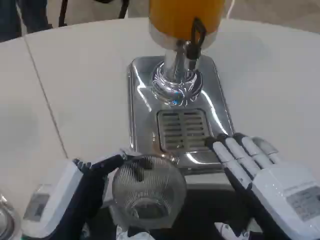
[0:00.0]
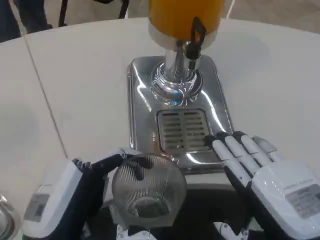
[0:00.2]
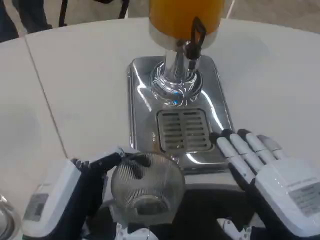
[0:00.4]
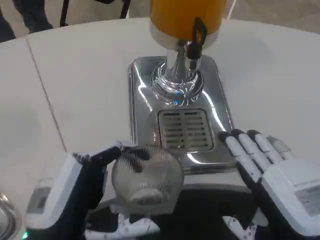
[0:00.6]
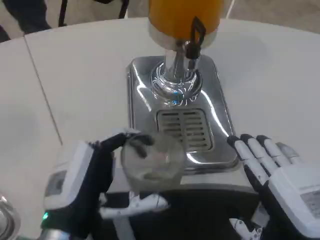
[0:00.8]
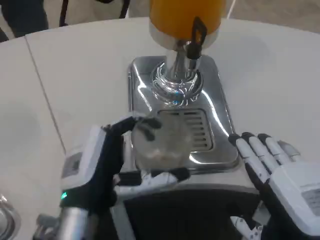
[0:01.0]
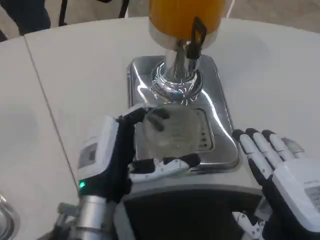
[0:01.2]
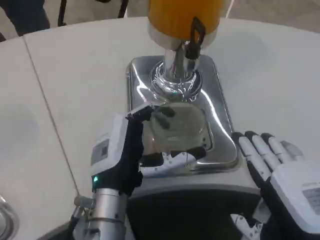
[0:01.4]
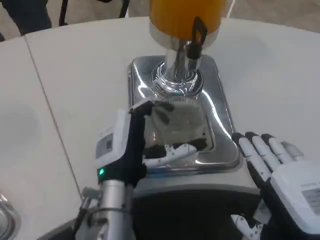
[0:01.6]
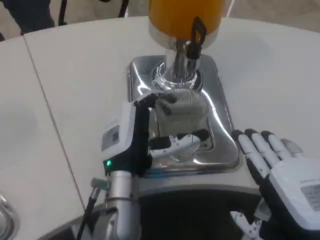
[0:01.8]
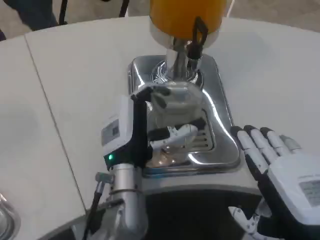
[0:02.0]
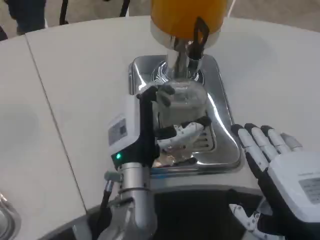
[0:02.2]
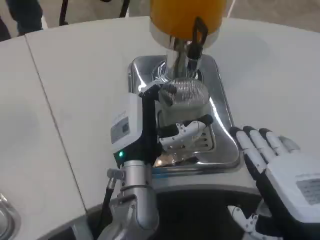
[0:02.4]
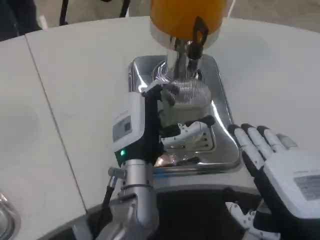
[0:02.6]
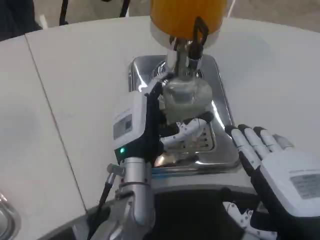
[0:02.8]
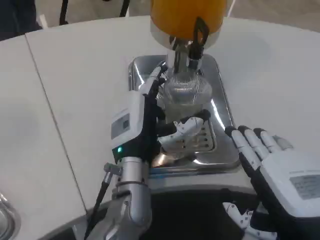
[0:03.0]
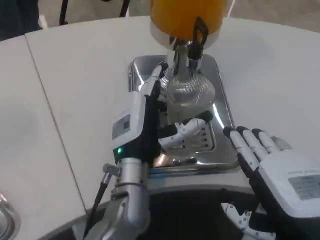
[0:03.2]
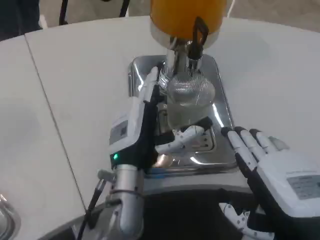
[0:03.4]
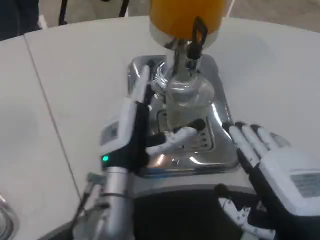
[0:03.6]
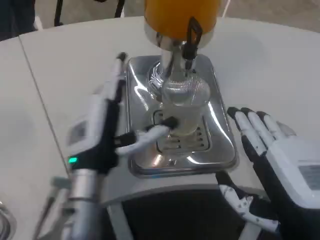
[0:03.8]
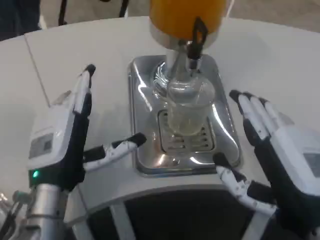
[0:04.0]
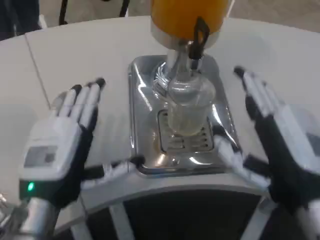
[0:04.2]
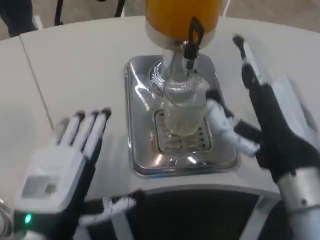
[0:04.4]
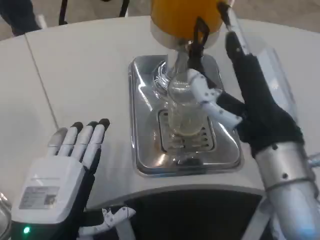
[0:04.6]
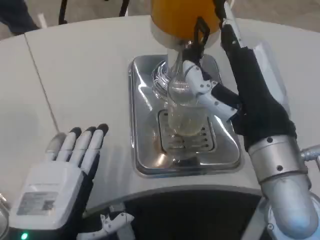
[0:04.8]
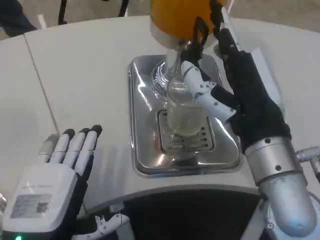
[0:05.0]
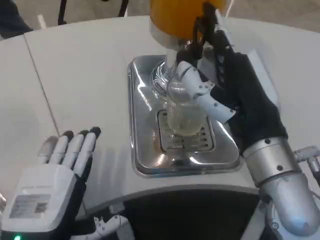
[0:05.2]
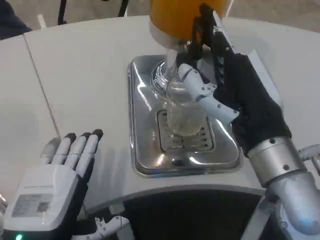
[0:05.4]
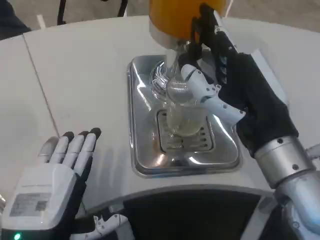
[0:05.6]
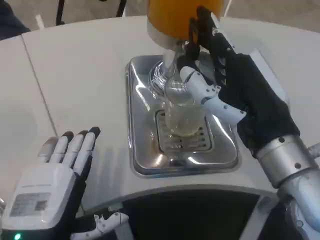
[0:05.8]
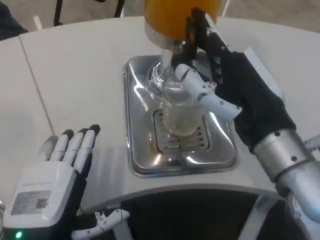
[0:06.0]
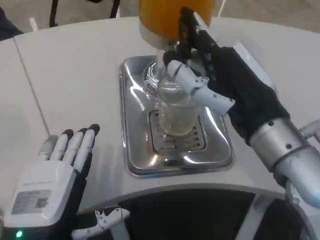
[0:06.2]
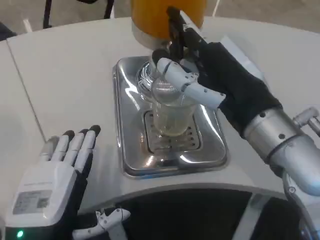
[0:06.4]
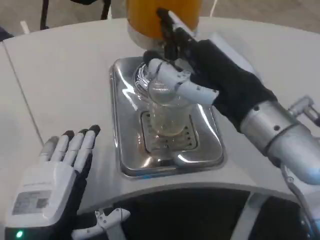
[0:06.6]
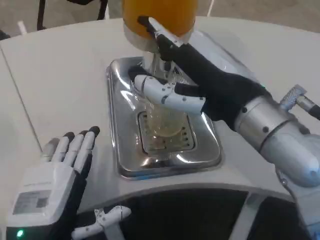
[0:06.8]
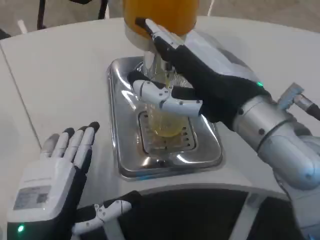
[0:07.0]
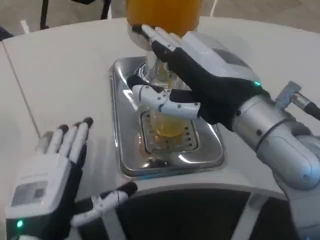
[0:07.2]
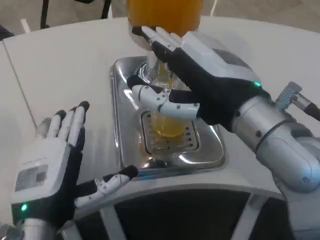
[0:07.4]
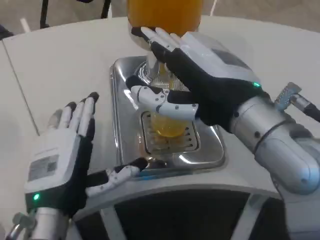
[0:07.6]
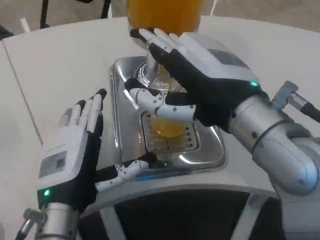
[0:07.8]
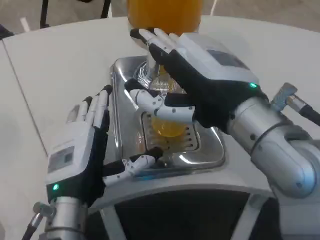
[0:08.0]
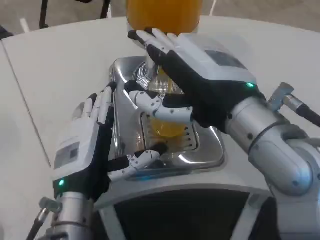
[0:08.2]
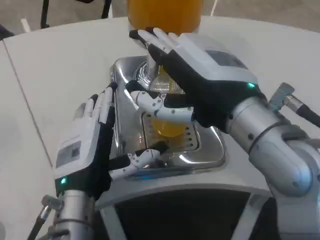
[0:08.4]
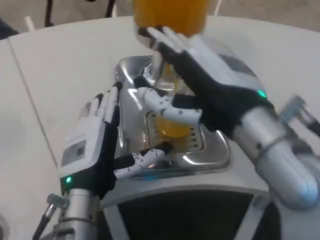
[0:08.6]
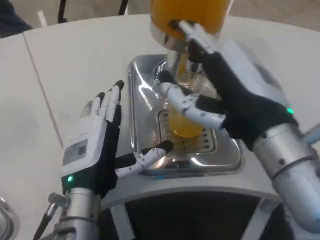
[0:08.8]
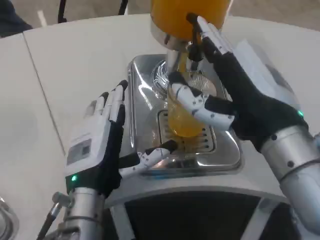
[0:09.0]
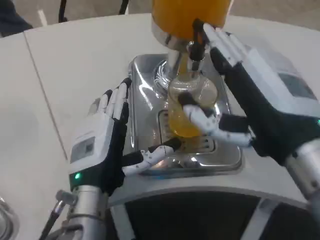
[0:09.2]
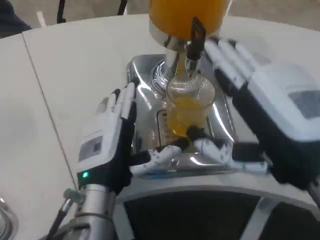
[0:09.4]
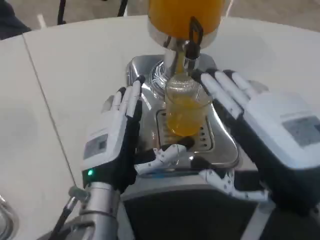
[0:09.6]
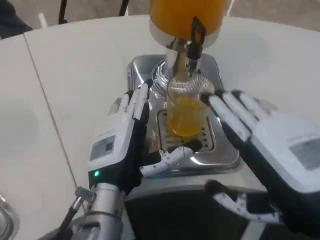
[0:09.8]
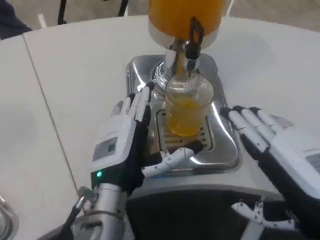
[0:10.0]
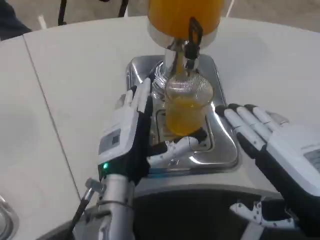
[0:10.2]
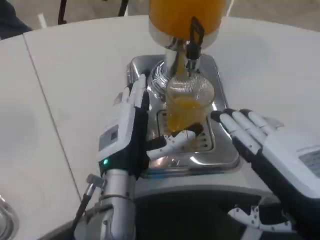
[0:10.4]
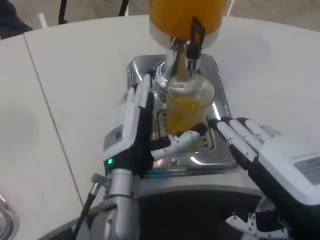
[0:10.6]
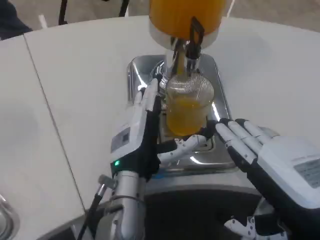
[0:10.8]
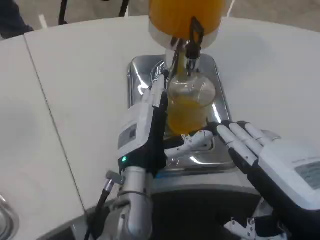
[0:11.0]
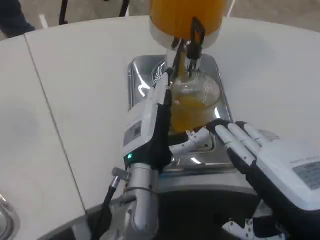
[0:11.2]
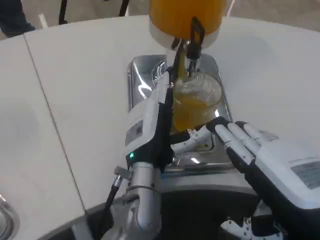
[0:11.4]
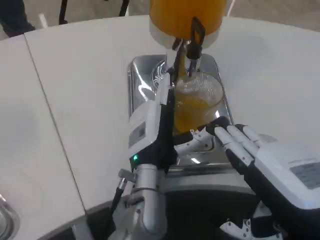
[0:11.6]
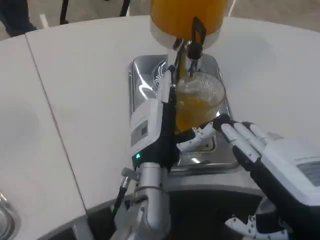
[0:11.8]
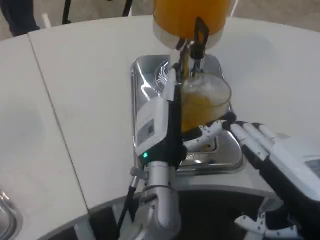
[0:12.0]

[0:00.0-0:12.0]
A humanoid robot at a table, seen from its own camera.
Task of the whole recording: Grasp the cup under the faucet to collect the drink, then remove the cup.
0:00.0 to 0:01.6: The left hand heads forward and to the right, covering roughly 15 cm.
0:01.6 to 0:03.0: There are only small adjustments of the hands.
0:03.0 to 0:04.4: The right hand travels forward by about 5 cm. The left hand moves backward and to the left, roughly 20 cm.
0:06.0 to 0:07.6: The right hand shifts by approximately 5 cm; the left hand travels forward by some 5 cm.
0:07.6 to 0:09.0: The left hand changes place by about 5 cm.
0:09.0 to 0:10.4: The left hand ends up approximately 5 cm from where it was; the right hand travels to the right and backward by approximately 10 cm.
0:10.4 to 0:12.0: The left hand is displaced to the right by some 5 cm.

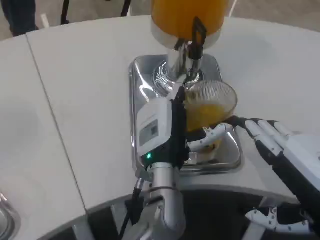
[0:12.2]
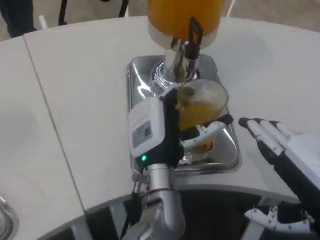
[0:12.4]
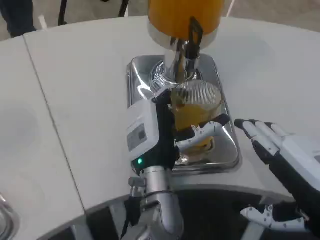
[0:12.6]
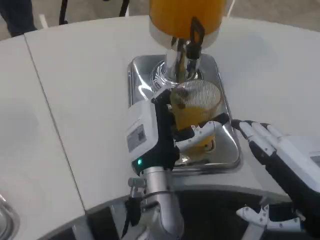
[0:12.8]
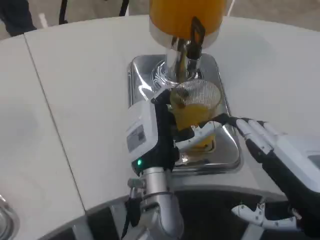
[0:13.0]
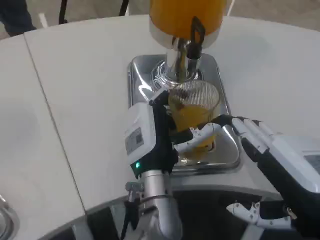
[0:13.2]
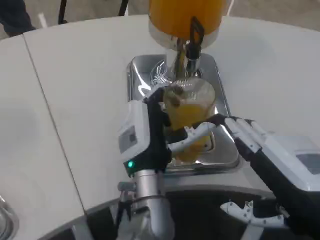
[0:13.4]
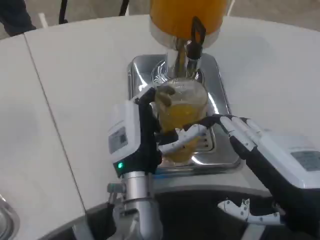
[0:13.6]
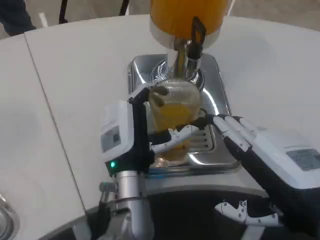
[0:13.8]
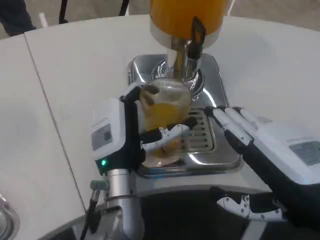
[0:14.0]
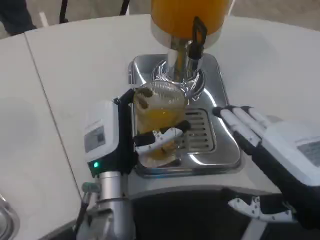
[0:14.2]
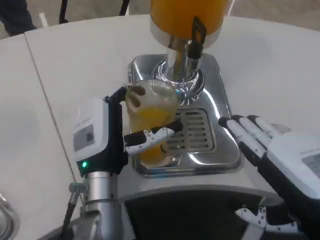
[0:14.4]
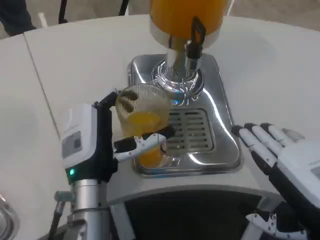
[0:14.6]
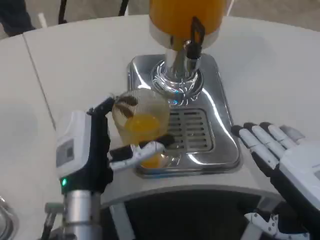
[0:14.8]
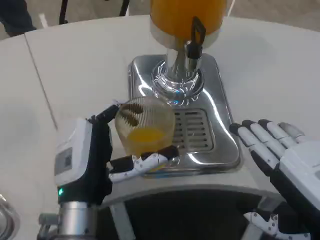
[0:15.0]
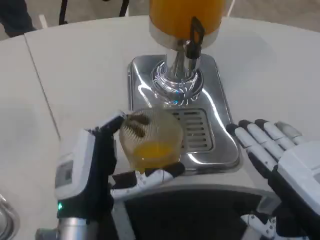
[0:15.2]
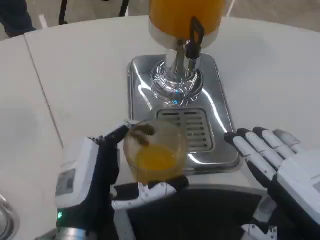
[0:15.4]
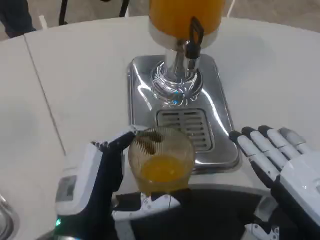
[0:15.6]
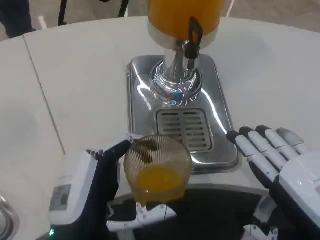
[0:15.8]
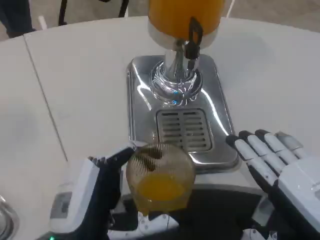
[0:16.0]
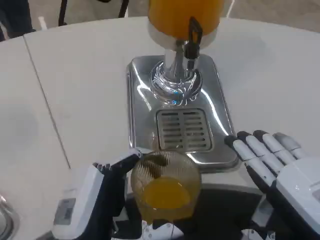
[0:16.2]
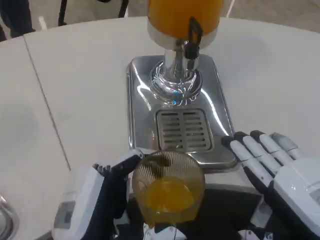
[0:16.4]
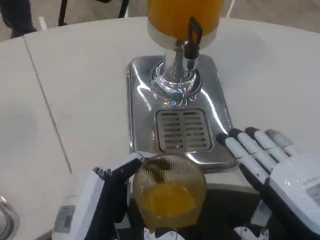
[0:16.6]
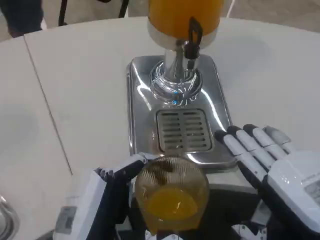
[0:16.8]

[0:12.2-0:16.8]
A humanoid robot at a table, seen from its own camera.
Task of the whole recording: Grasp the cup under the faucet to collect the drink, then remove the cup.
0:12.2 to 0:13.8: The left hand shifts by roughly 5 cm.
0:13.8 to 0:15.2: The left hand travels backward and to the left by roughly 10 cm.
0:15.2 to 0:16.8: The left hand goes some 5 cm backward.

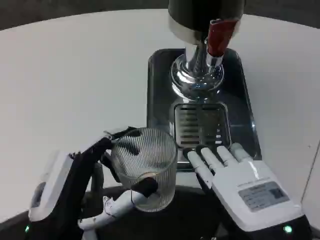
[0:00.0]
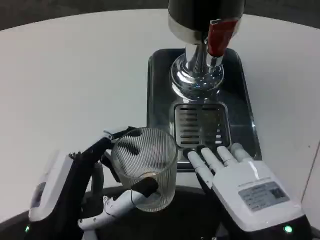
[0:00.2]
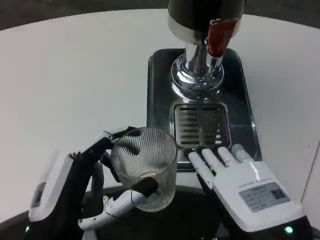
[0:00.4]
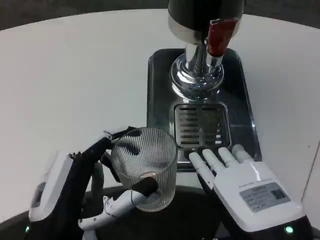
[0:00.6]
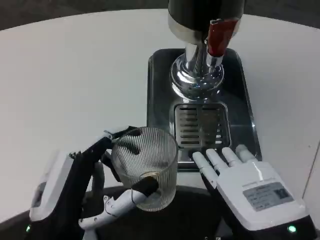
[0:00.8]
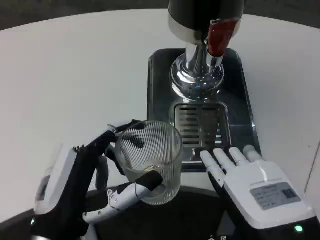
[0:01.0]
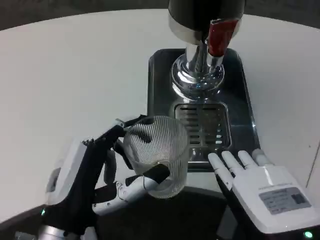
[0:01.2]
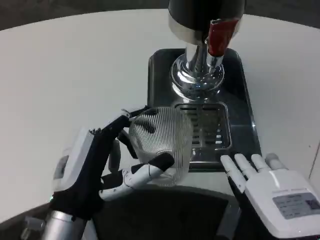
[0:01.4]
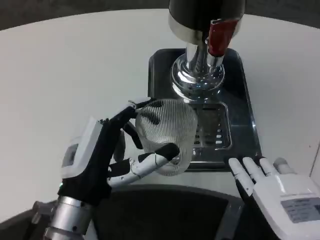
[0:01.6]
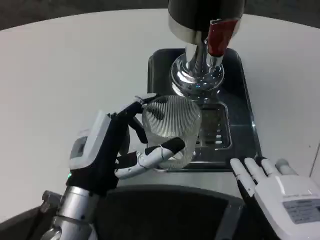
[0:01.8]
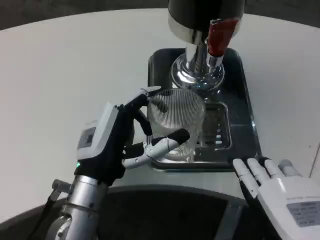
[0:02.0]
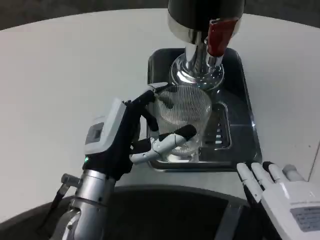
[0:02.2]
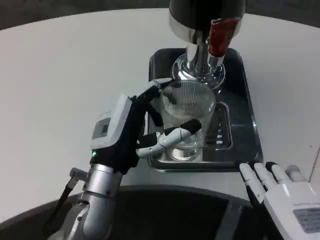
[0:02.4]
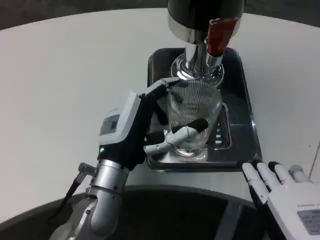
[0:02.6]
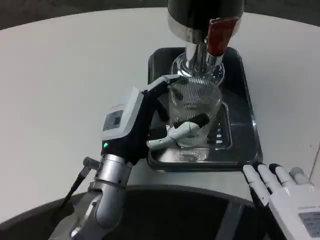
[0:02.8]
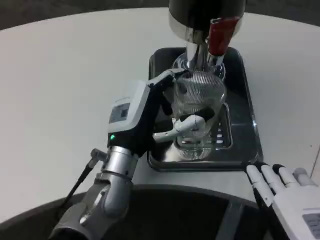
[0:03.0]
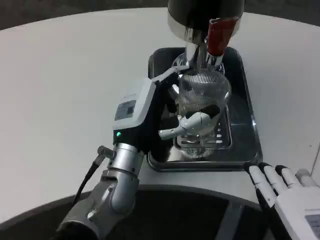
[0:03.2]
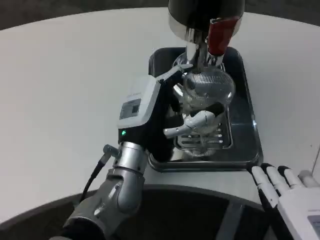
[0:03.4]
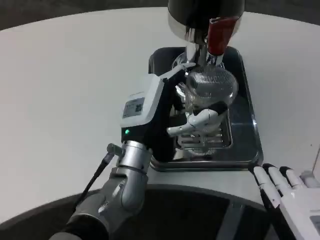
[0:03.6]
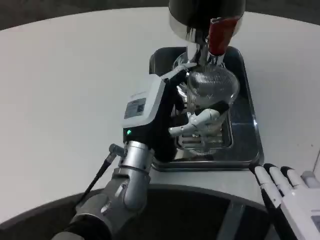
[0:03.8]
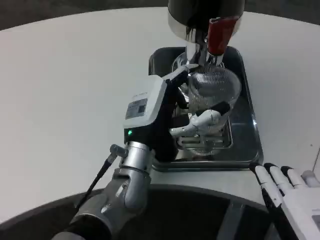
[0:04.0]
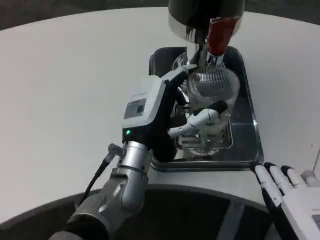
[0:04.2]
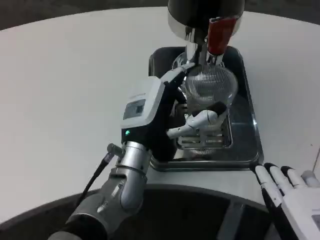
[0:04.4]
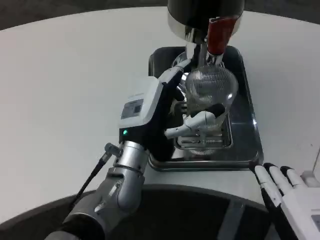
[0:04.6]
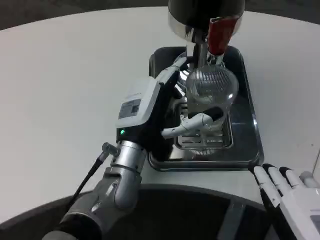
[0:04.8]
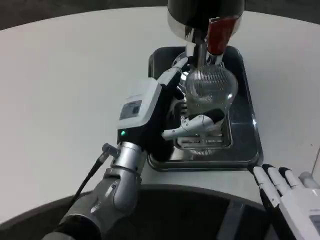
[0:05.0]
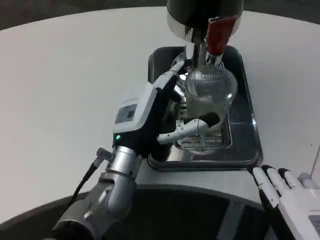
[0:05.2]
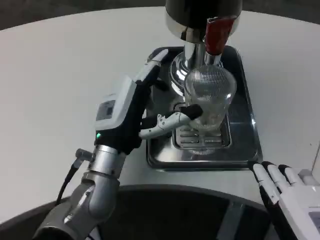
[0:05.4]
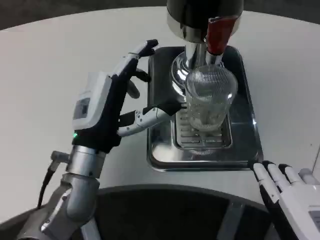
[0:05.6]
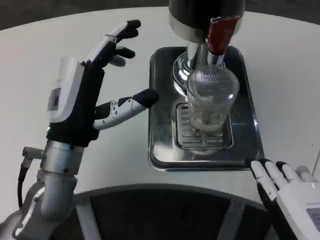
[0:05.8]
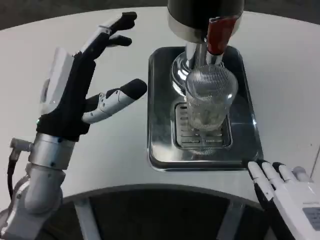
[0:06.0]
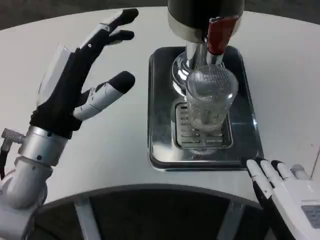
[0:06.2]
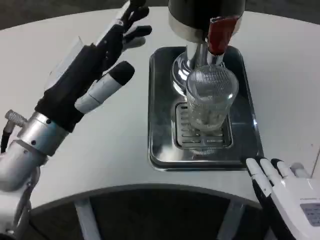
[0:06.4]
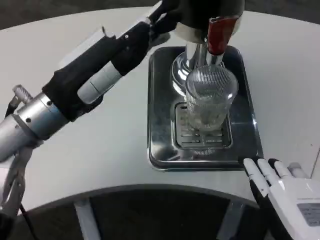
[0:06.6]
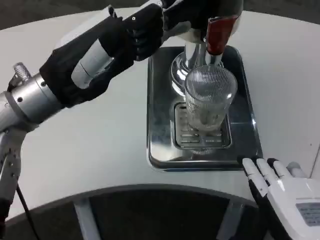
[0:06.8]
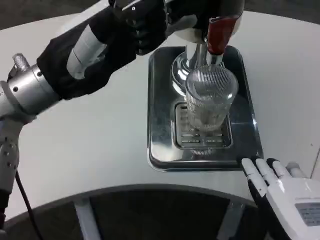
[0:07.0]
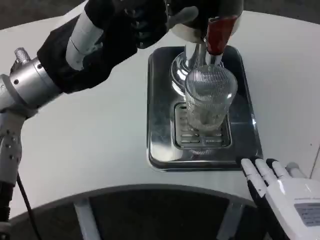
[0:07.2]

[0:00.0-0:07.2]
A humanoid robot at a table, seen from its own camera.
Task of the whole recording: Grasp the cup under the faucet to collect the drink, then remove the cup.
0:01.4 to 0:02.8: The left hand goes approximately 10 cm forward and to the right.
0:02.8 to 0:04.4: The hands make only small movements.
0:04.4 to 0:05.8: The left hand goes some 10 cm to the left.
0:05.8 to 0:07.2: The left hand travels upward by about 15 cm.
